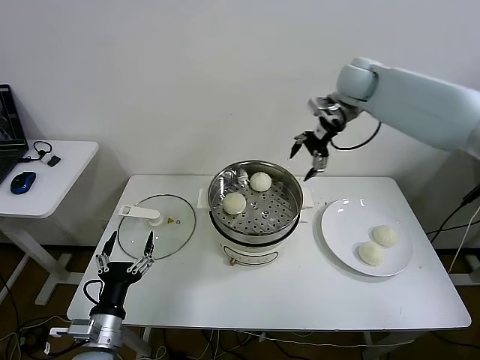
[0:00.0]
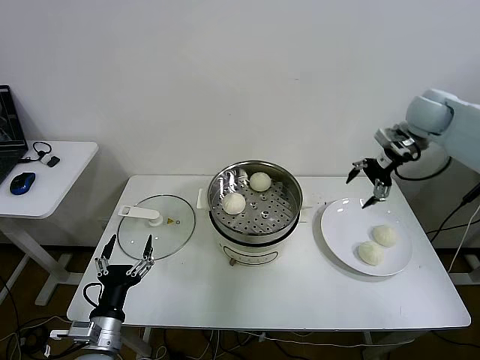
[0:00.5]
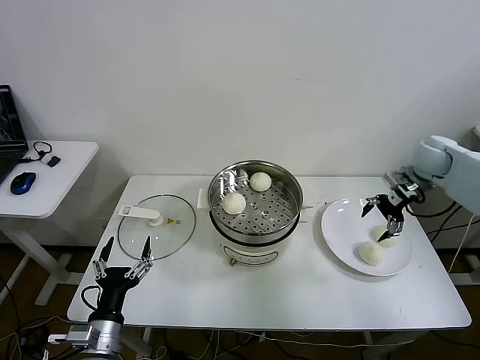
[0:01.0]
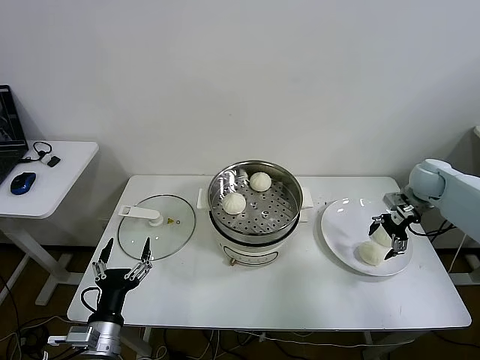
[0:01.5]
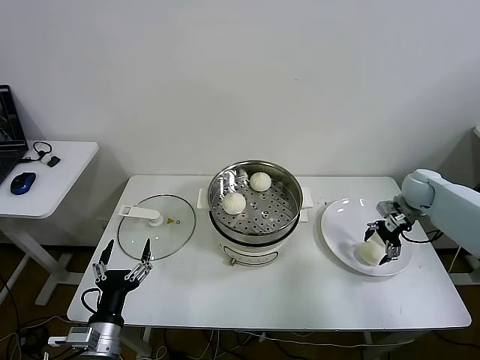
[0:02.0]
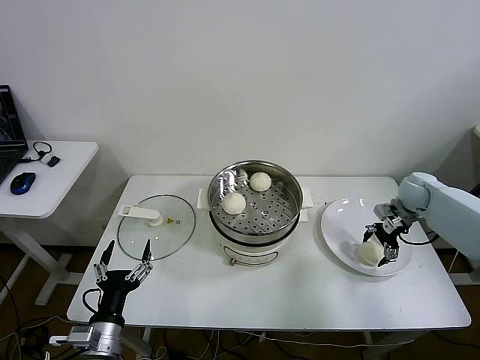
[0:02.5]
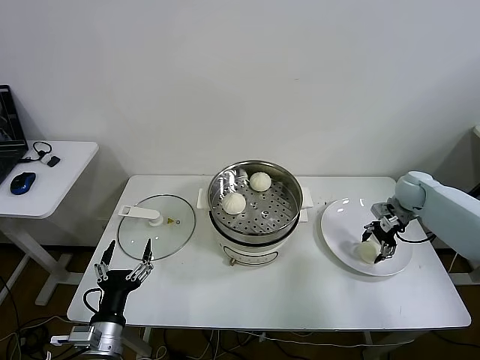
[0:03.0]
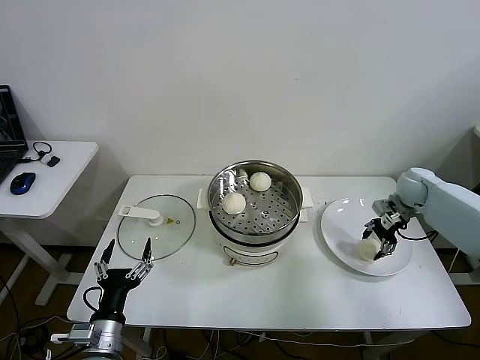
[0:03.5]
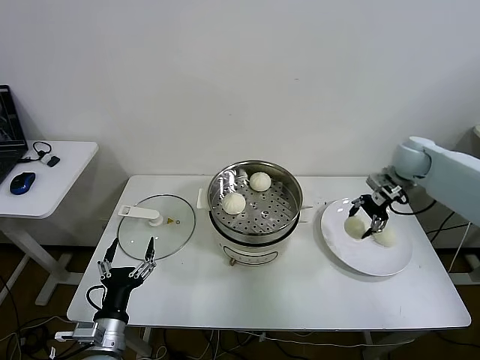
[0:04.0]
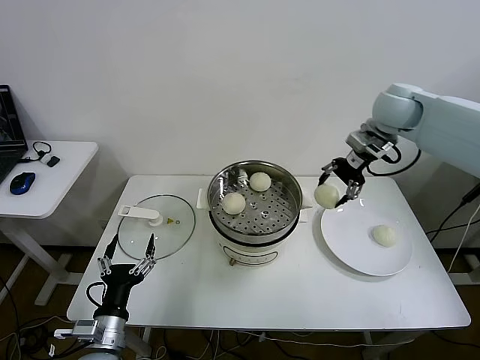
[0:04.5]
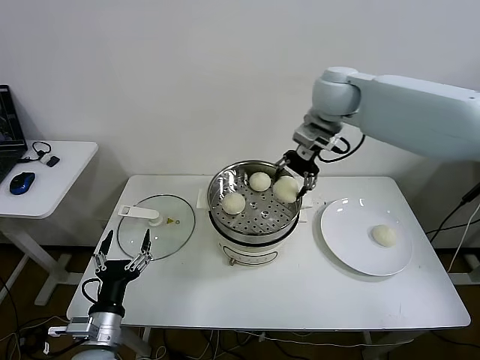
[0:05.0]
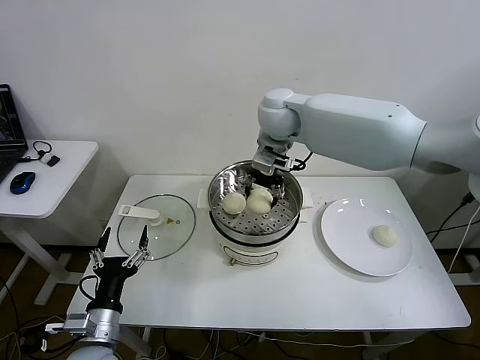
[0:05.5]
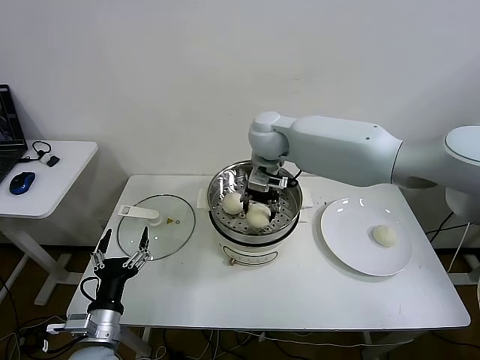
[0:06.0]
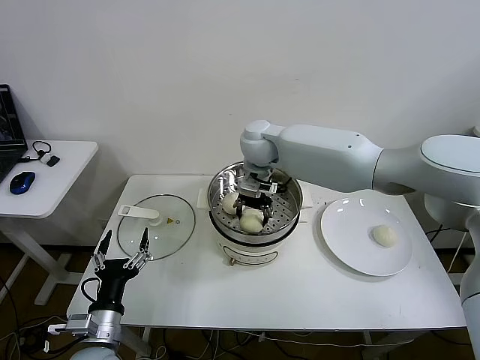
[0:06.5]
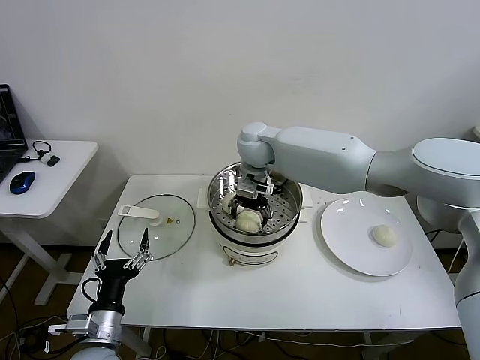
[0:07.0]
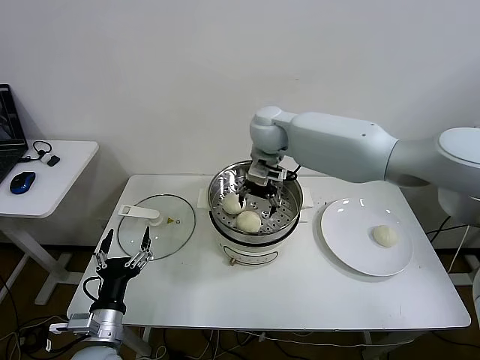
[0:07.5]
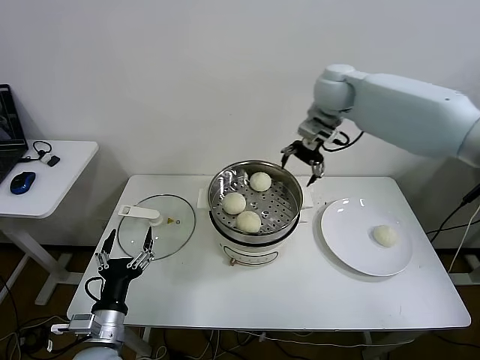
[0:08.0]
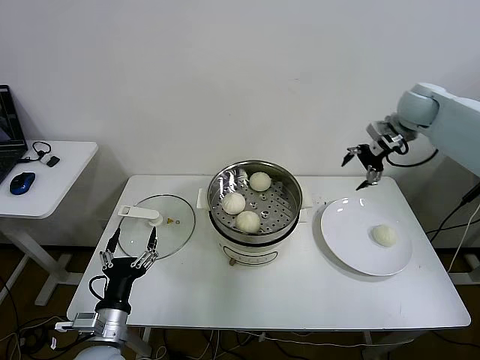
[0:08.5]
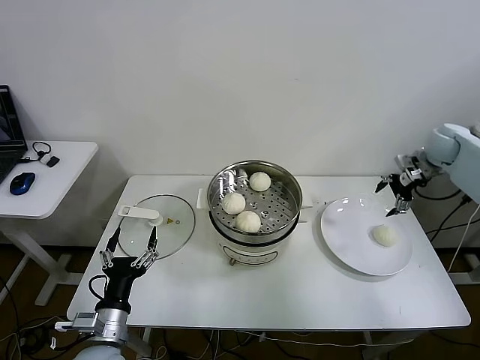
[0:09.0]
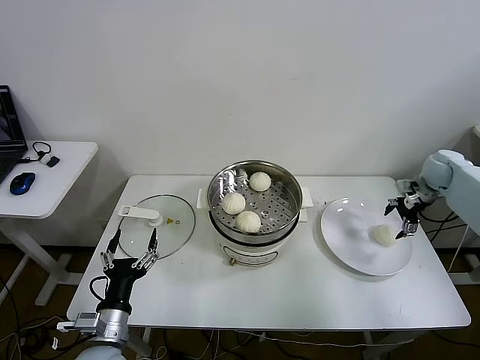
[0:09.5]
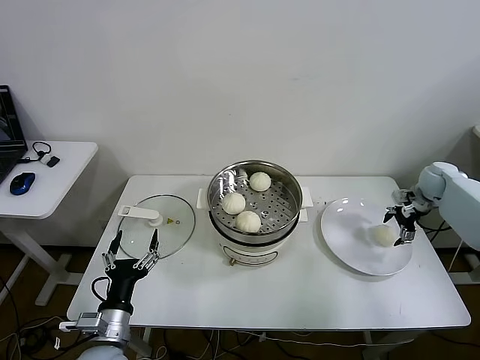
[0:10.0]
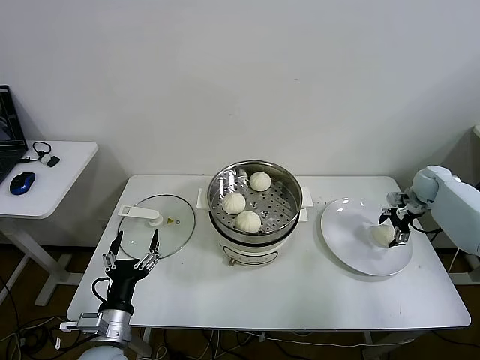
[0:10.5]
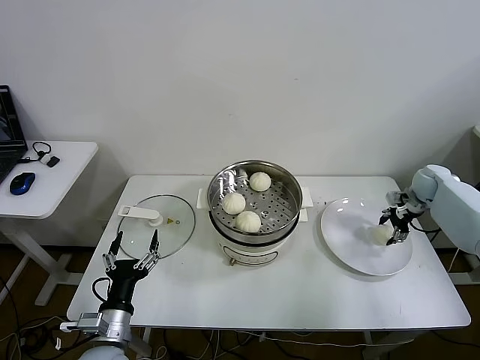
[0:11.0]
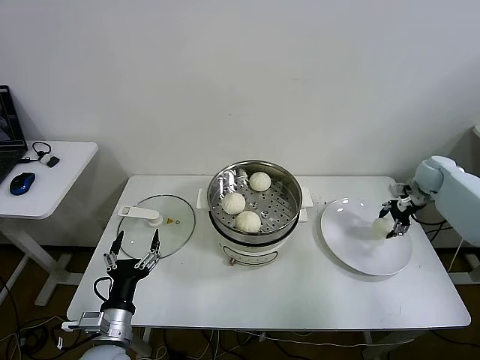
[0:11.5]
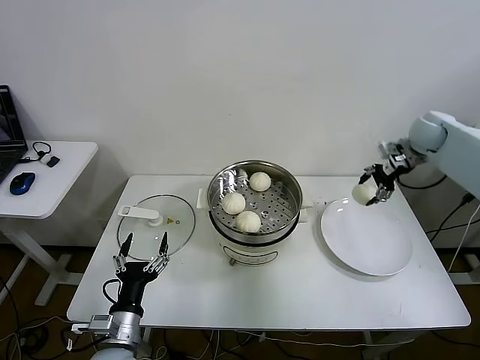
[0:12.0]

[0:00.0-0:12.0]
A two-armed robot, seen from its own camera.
Step, 0:00.0 to 0:03.0: Grasp the baozi in the plate with right gripper.
Step, 0:03.5 to 0:07.0: Place the baozi on the steamer with right gripper.
Step, 0:07.5 to 0:10.5: Grasp the baozi in the plate with right gripper.
0:00.0 to 0:02.0: The right gripper is displaced downward and to the right by some 30 cm.
0:02.0 to 0:04.0: The right gripper heads upward and to the left, covering some 10 cm, and closes.
0:04.0 to 0:06.0: The right gripper is displaced to the left by some 35 cm.
0:06.0 to 0:08.0: The right gripper is displaced to the right and upward by approximately 15 cm, and opens up.
0:08.0 to 0:10.0: The right gripper travels to the right and downward by about 40 cm.
0:10.0 to 0:12.0: The right gripper moves upward and to the left, some 15 cm, and closes.

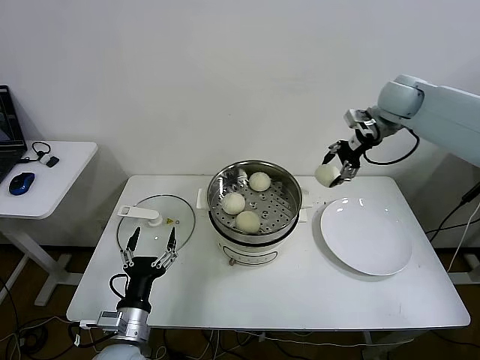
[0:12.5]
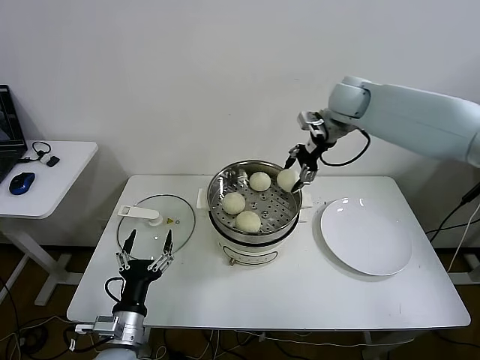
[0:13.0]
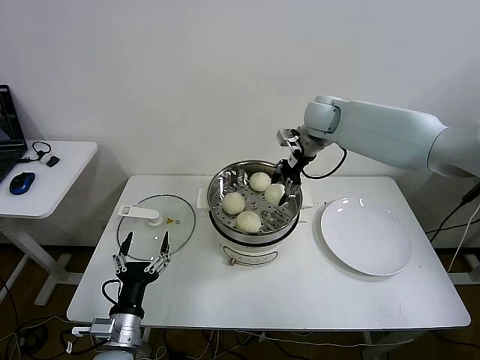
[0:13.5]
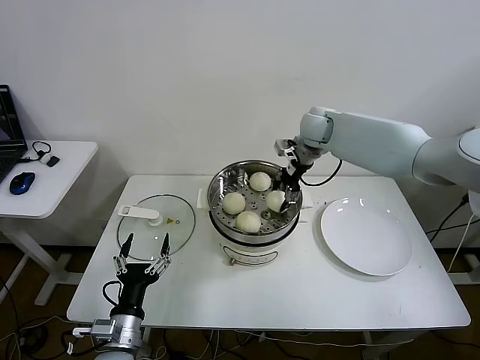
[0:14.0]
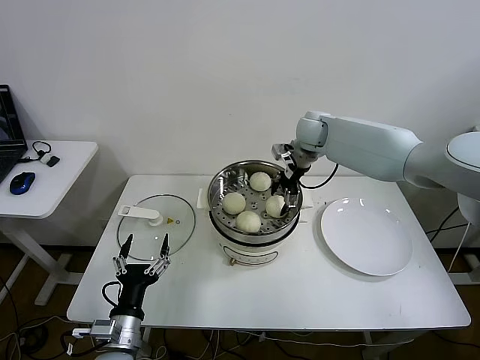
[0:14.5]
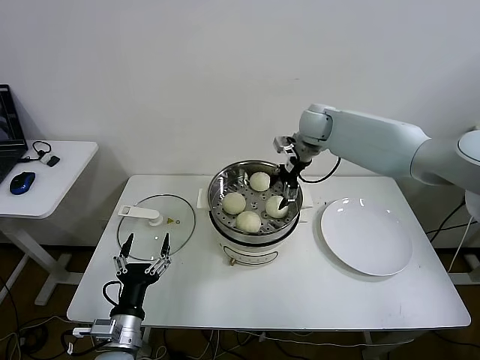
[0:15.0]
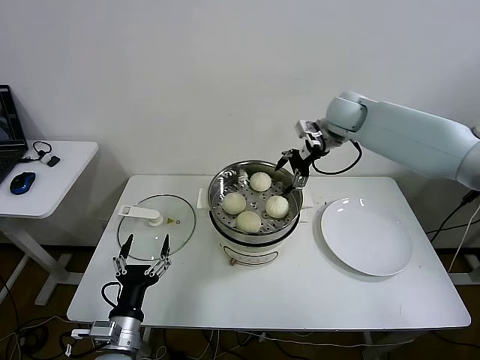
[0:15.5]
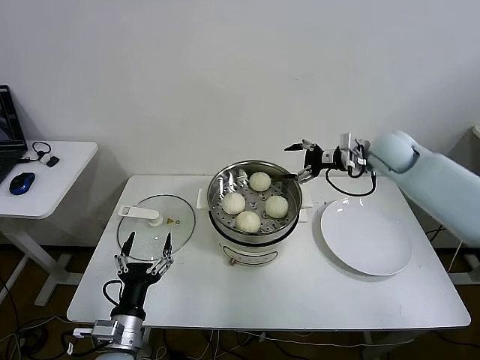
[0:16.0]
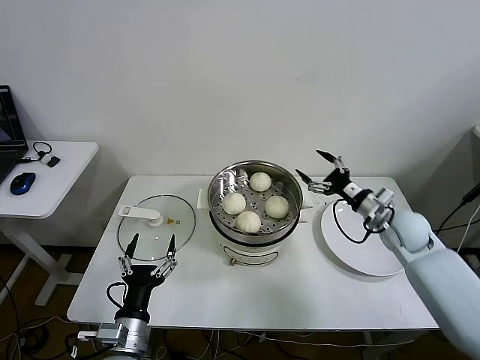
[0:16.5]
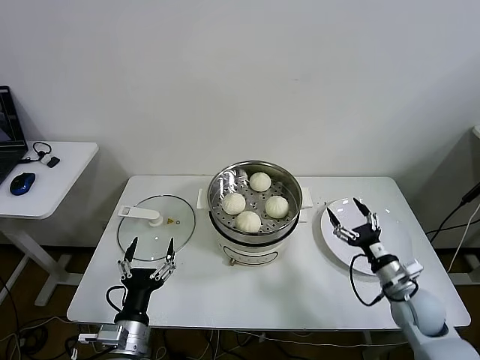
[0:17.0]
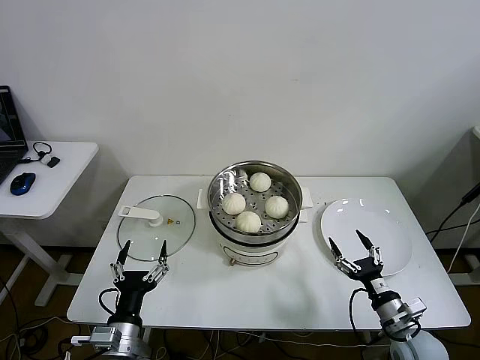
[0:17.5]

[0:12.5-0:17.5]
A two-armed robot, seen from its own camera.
Step, 0:12.5 to 0:14.5: Place the baozi on the steamer with right gripper.
0:12.5 to 0:15.0: The right gripper heads to the left and downward, covering some 20 cm, and opens its fingers.
0:15.0 to 0:17.5: The right gripper goes about 50 cm backward and downward.

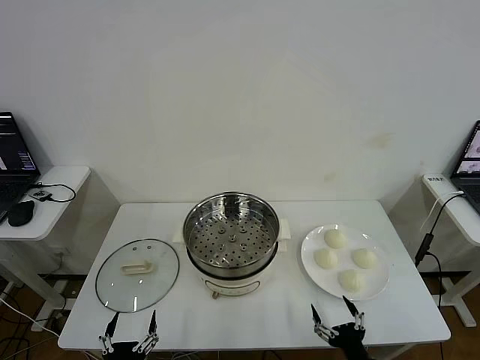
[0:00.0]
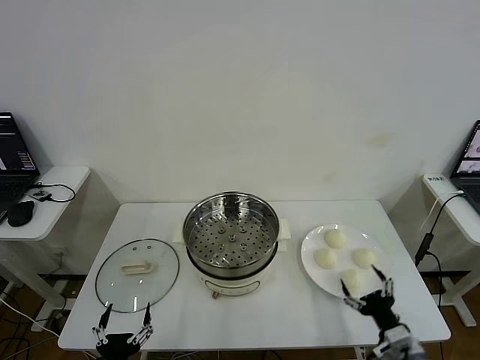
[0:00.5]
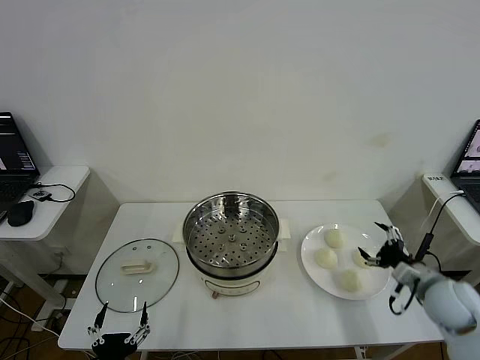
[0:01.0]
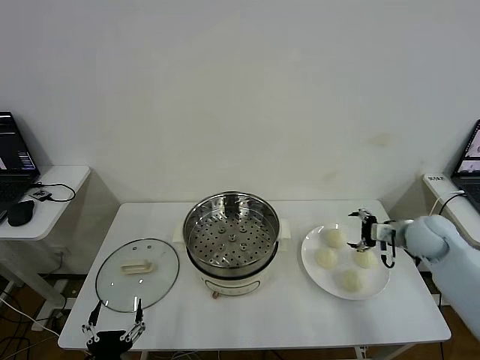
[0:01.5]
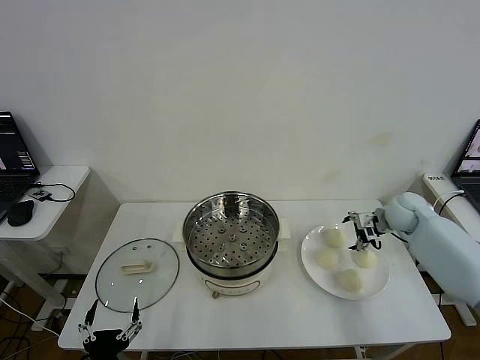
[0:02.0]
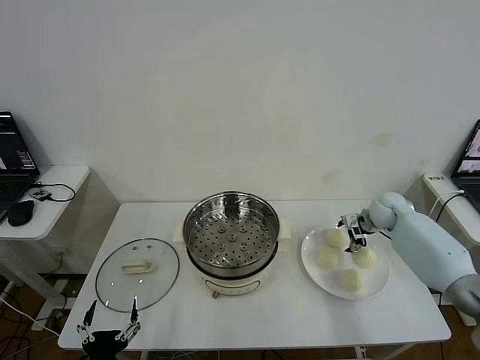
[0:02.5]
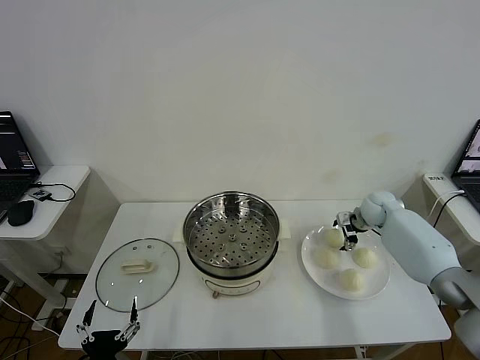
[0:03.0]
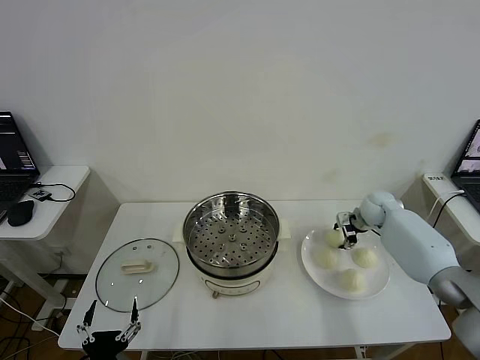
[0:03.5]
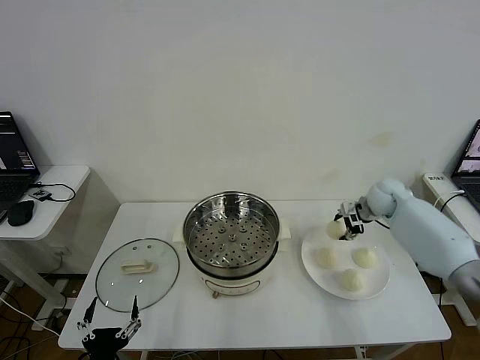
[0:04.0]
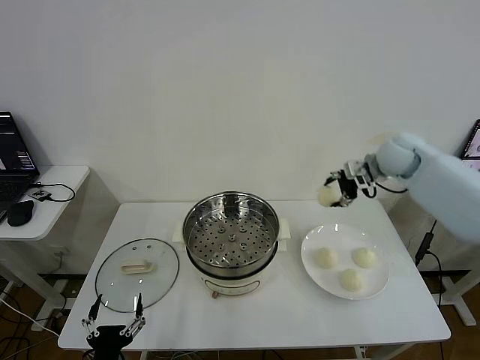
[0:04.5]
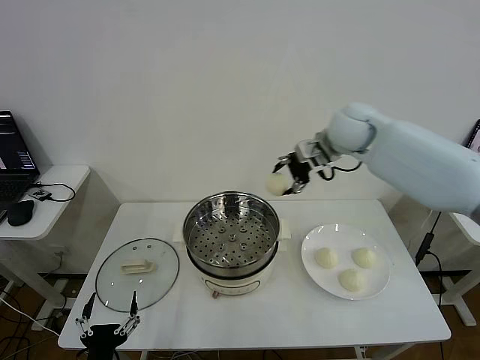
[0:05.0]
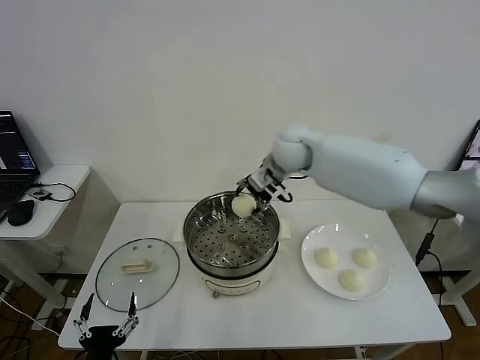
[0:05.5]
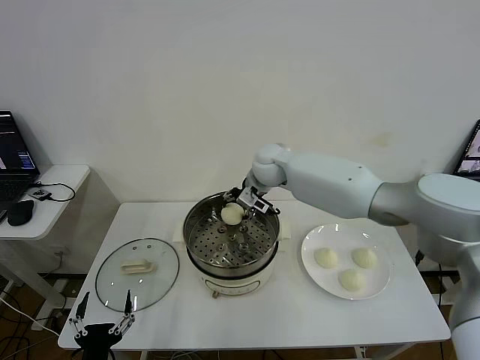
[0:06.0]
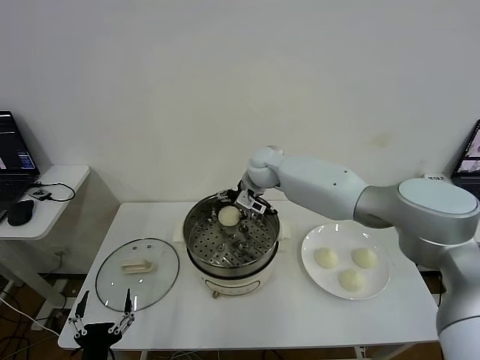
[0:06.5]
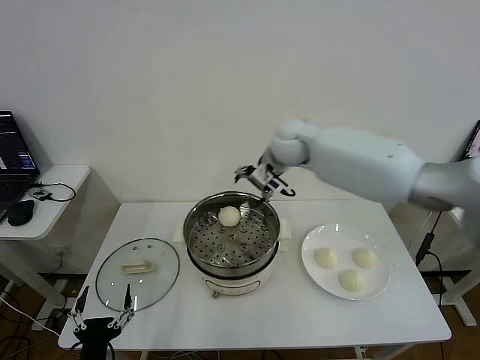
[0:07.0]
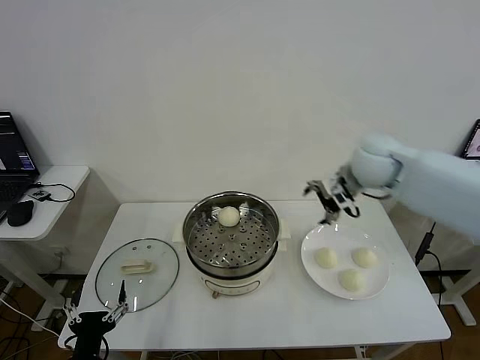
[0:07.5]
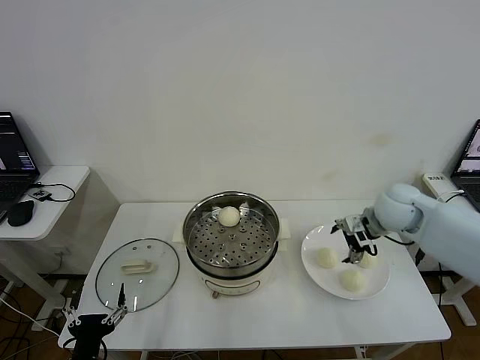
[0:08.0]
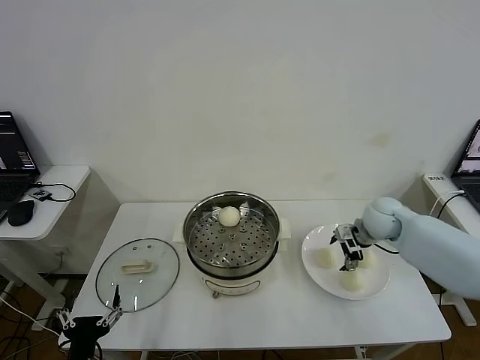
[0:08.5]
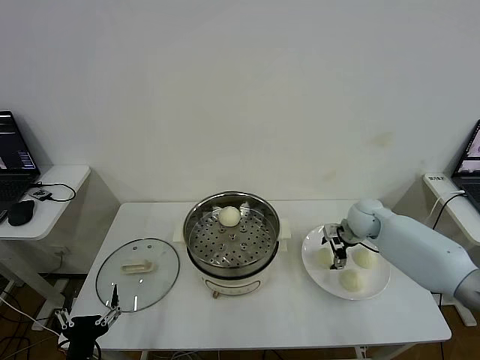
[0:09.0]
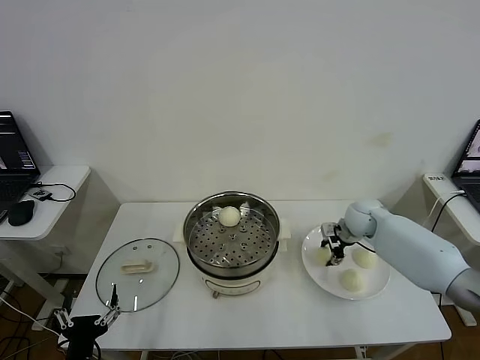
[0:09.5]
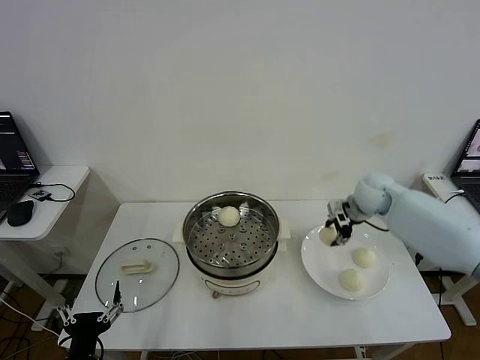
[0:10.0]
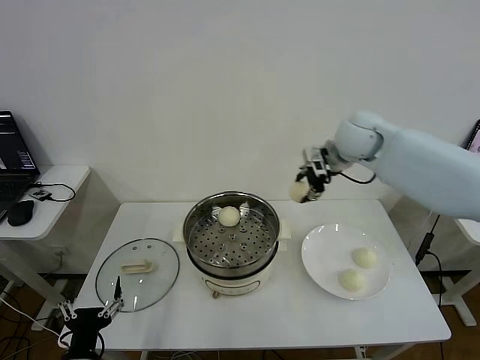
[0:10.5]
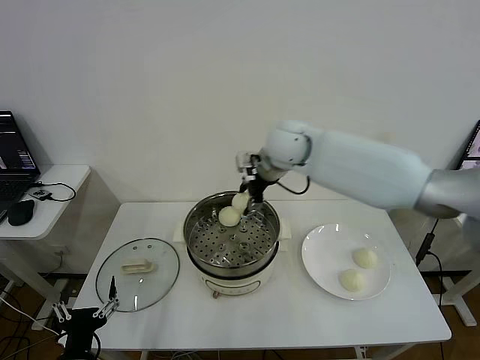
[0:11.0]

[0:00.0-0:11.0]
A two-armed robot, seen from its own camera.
Step, 0:00.0 to 0:03.5: Grasp the baozi in the plate with right gripper.
Step, 0:04.0 to 0:06.5: Place the baozi on the steamer with right gripper.
Step, 0:07.0 to 0:09.5: Grasp the baozi in the plate with right gripper.
0:02.0 to 0:03.5: The right gripper moves approximately 5 cm, and closes.
0:03.5 to 0:05.5: The right gripper moves to the left and upward, approximately 35 cm.
0:05.5 to 0:07.5: The right gripper travels to the right by some 20 cm, and opens.
0:07.5 to 0:09.0: The right gripper shifts roughly 20 cm downward.
0:09.0 to 0:11.0: The right gripper is displaced to the left and upward by approximately 30 cm, and closes.
